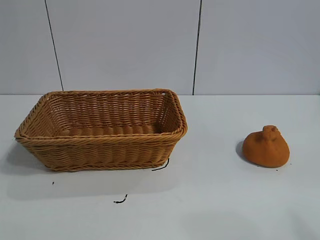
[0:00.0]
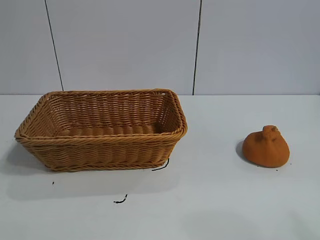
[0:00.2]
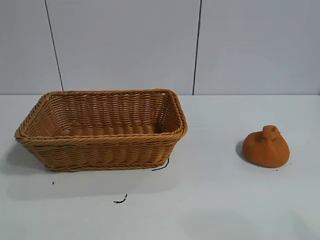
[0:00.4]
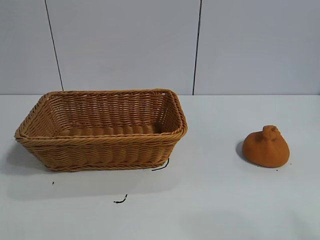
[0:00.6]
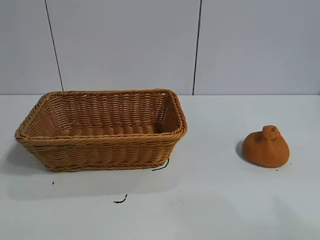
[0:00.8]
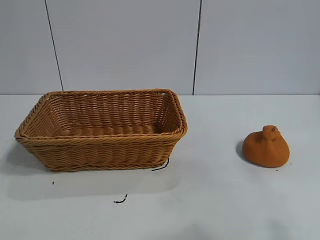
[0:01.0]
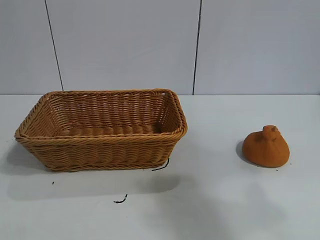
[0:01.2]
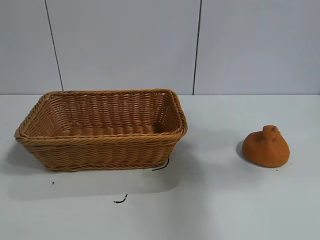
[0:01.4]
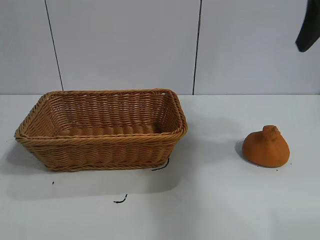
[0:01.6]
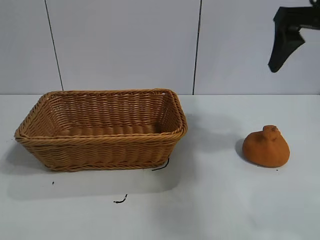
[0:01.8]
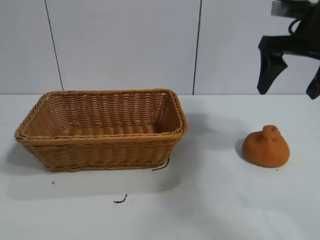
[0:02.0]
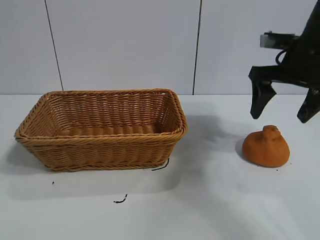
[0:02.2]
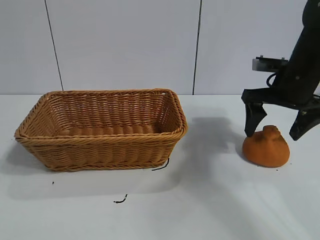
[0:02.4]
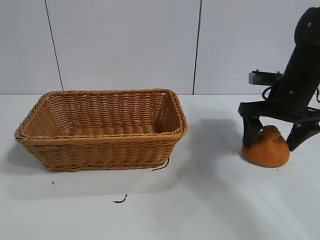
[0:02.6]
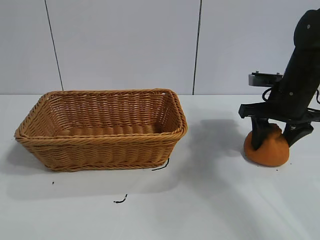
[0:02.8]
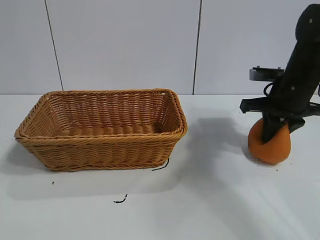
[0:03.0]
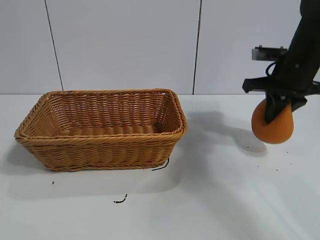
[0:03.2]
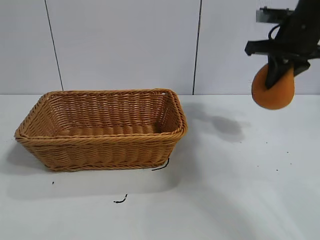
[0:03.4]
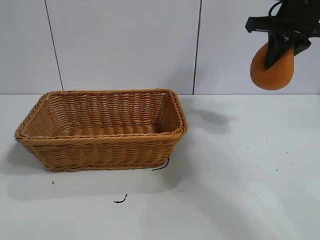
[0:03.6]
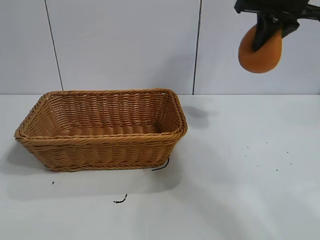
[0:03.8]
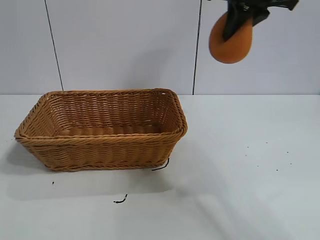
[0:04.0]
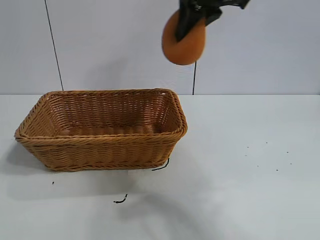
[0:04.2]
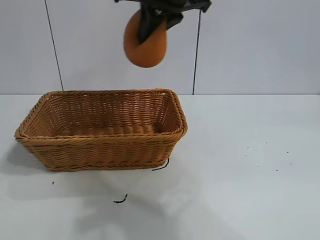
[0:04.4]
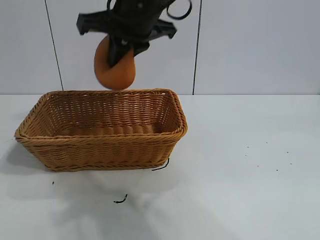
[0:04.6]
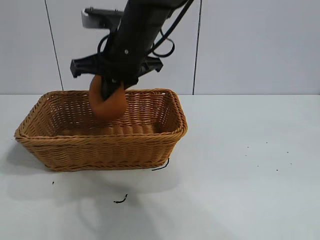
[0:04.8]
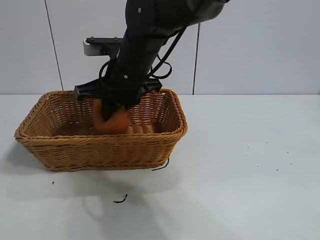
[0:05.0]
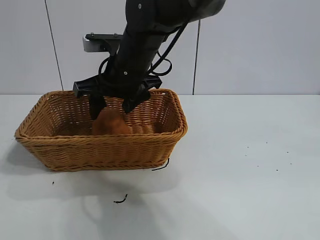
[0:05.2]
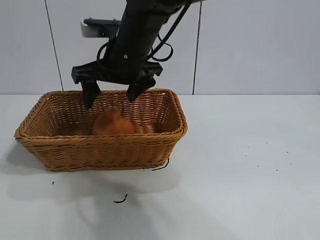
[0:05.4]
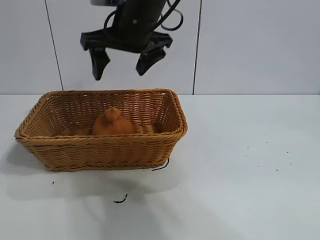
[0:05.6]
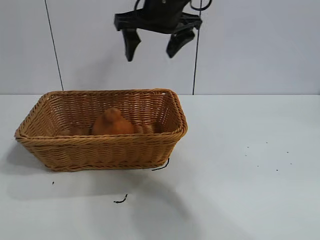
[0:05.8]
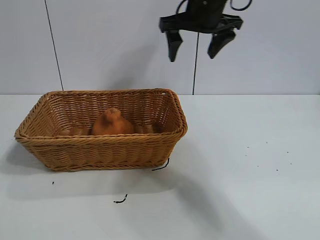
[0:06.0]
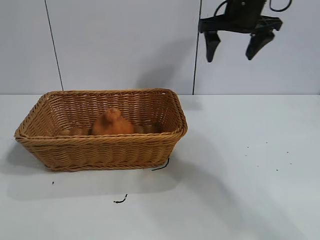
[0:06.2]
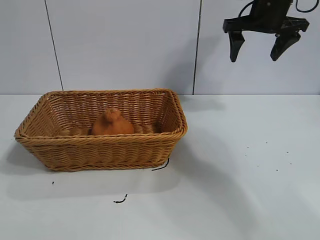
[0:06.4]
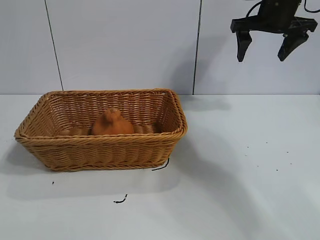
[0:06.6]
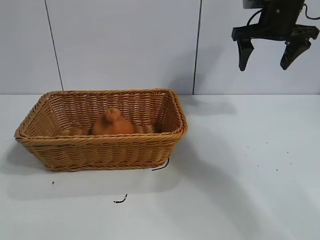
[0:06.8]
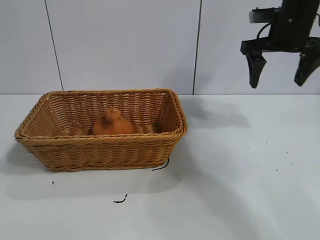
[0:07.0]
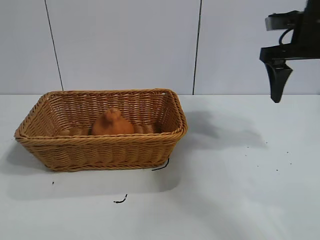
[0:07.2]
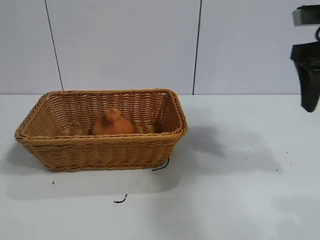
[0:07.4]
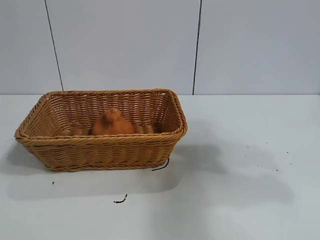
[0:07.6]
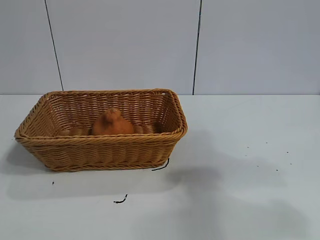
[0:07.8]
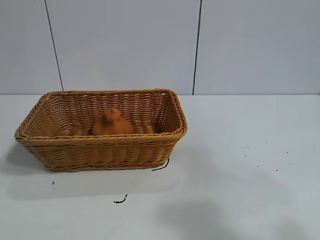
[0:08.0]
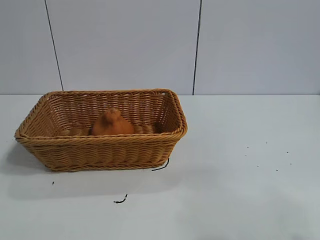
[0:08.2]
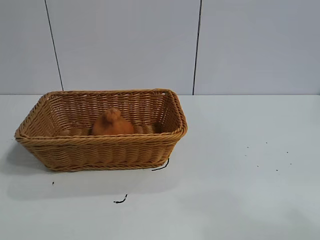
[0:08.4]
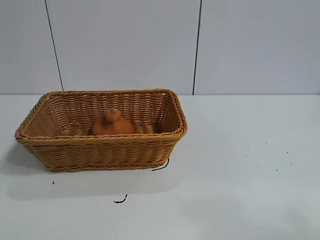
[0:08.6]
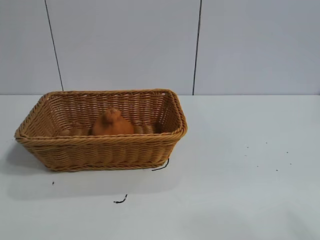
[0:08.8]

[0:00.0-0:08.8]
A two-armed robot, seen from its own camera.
Task of the whole recording: pick up the orange and put it into the basket.
Step, 0:00.8 to 0:03.0: Grasp the orange with right gripper.
Step, 0:03.2 to 0:05.2: Place the orange in the basket with right gripper.
